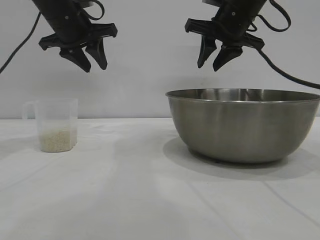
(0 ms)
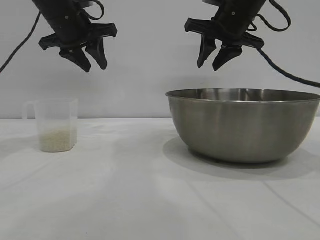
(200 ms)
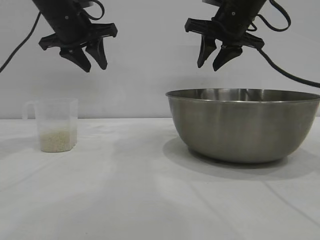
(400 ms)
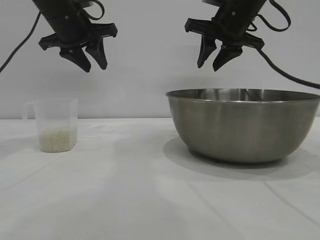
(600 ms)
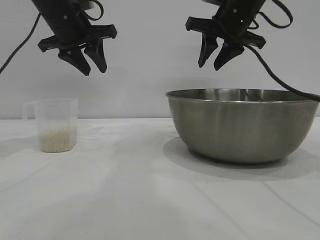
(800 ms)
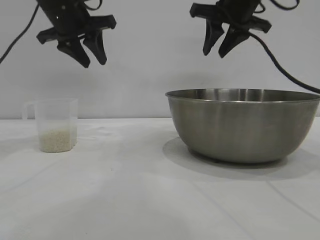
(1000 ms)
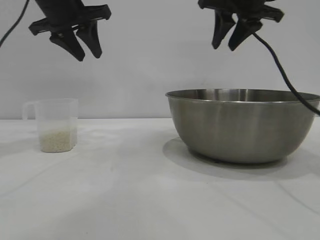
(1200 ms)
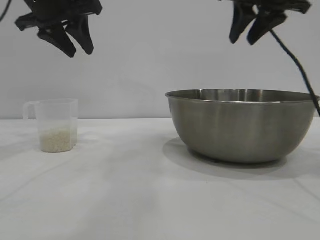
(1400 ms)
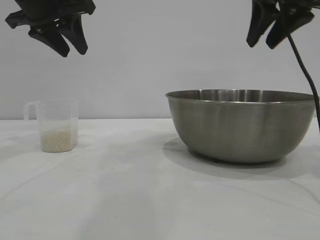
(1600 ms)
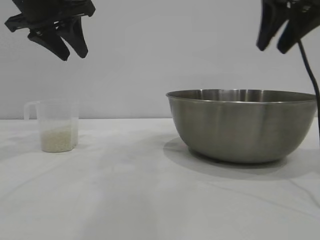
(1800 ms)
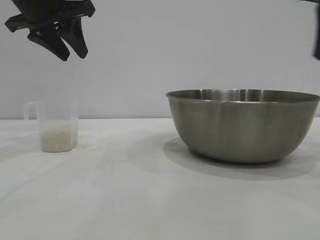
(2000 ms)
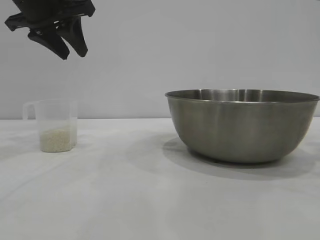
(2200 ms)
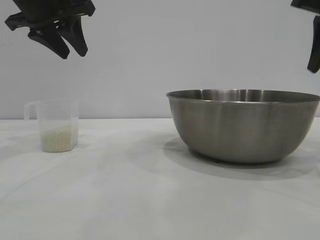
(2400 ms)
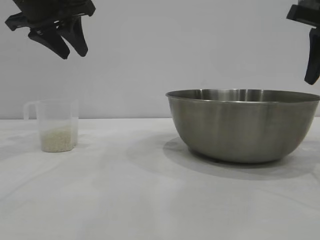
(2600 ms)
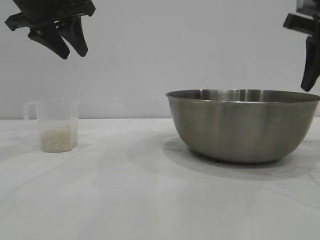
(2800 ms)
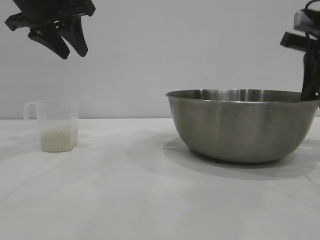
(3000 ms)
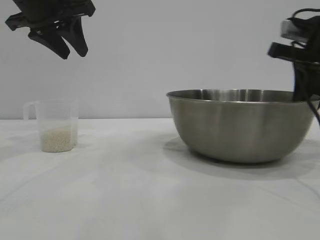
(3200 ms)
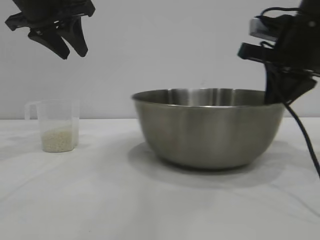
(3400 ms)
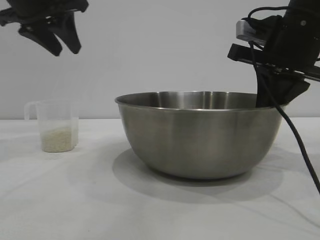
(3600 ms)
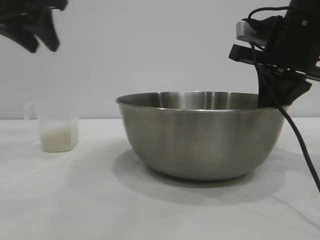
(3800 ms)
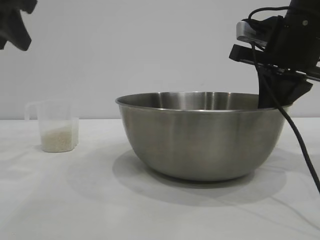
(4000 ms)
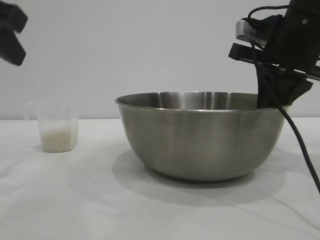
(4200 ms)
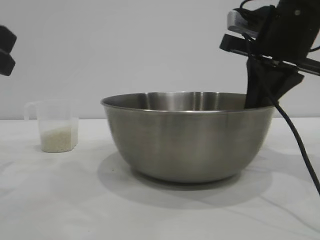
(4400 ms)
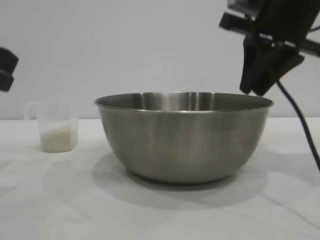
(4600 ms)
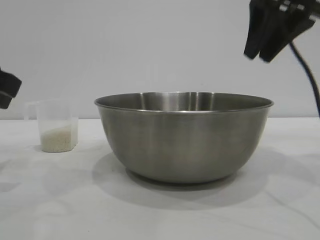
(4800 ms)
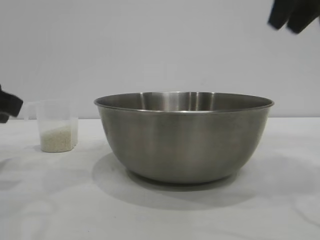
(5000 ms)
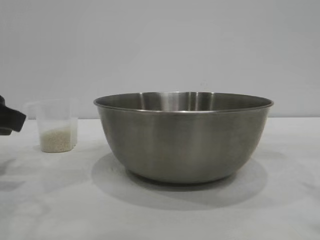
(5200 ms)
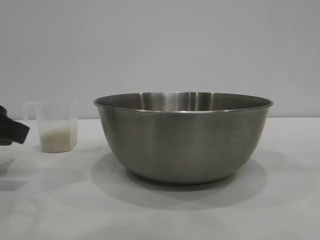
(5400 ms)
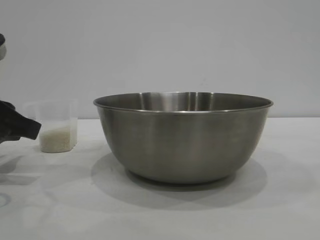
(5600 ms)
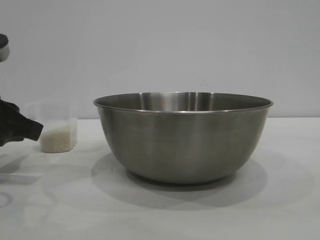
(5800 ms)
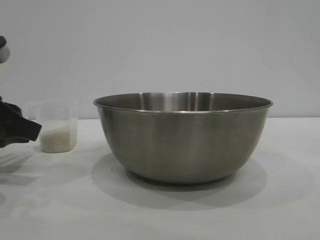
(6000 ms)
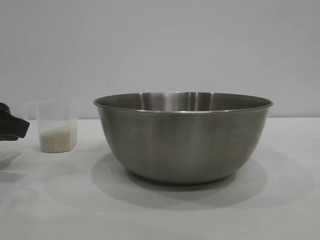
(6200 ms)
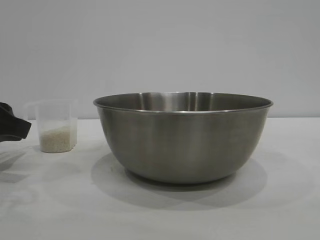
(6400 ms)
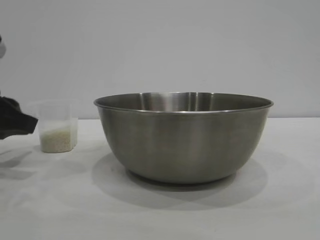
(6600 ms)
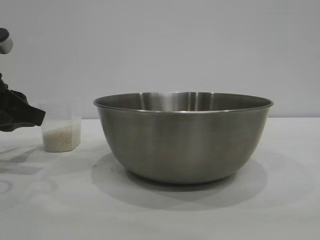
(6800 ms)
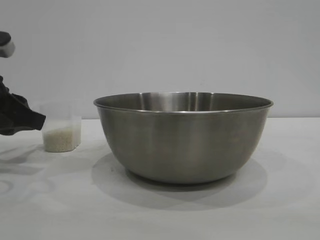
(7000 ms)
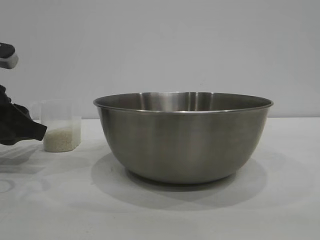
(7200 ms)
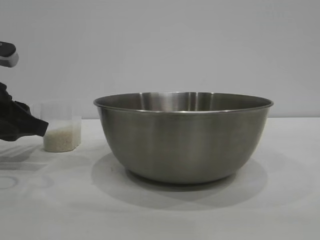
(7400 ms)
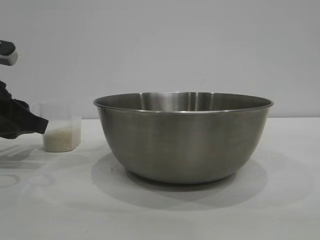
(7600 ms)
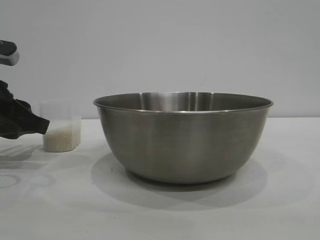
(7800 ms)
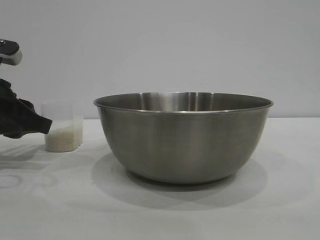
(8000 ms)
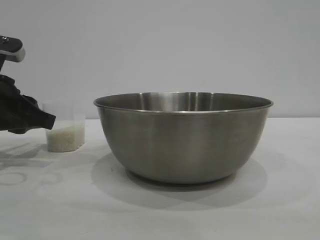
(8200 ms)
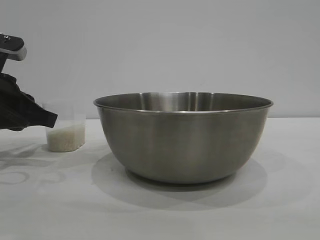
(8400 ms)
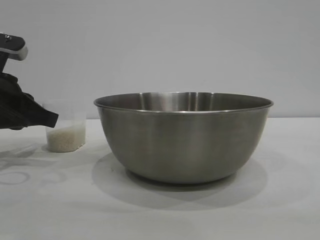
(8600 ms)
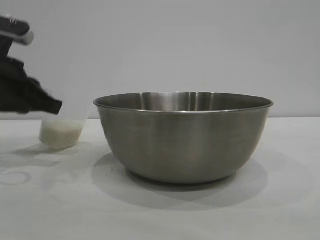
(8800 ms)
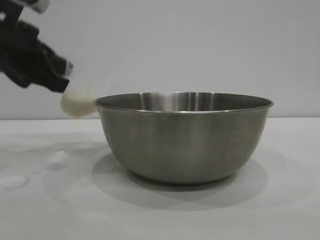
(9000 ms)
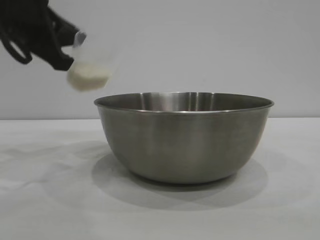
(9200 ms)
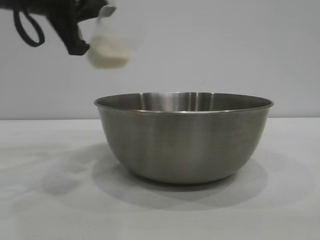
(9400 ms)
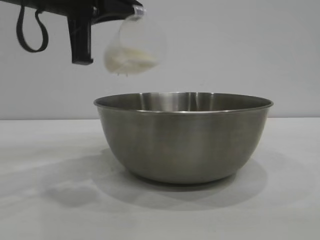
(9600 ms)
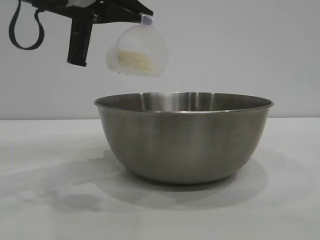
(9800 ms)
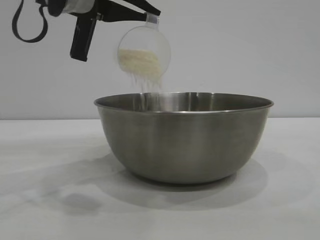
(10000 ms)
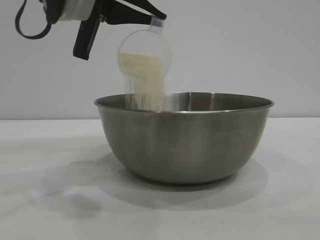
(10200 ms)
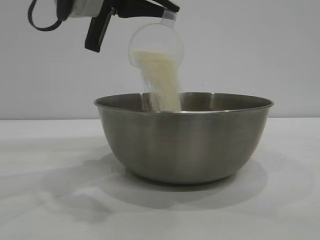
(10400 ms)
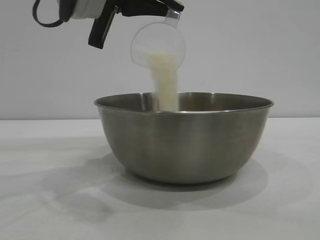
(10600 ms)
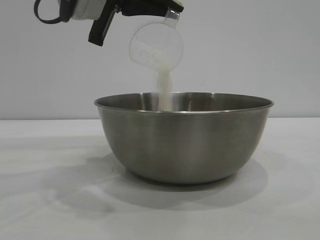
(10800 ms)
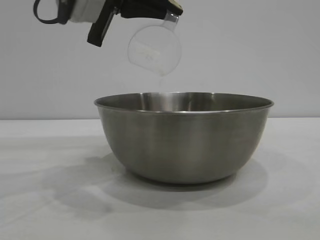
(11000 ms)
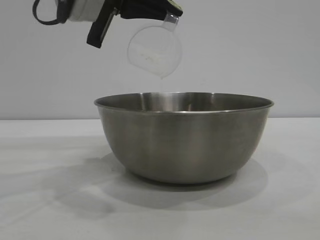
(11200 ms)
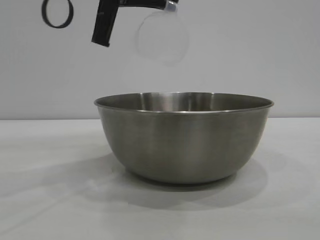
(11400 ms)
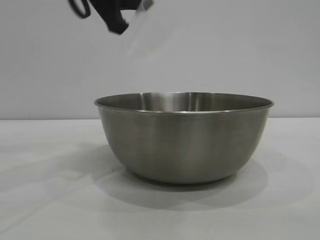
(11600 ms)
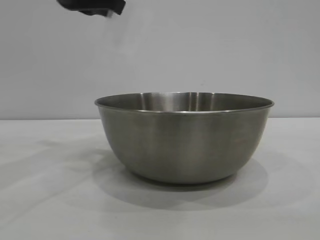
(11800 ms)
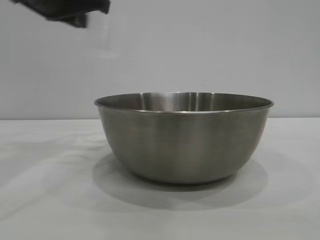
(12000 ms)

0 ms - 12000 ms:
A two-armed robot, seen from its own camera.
Task of the whole recording: the right gripper grasp the rice container and place it in the center of the table, the left gripper grasp the rice scoop and pour the rice into the rice container.
Step, 0 ms - 4600 ms: Move the bowl to the center of view with the right gripper.
Step, 4800 ms - 8800 ms: Pick up the cup with rice in it with the left gripper.
Step, 9200 ms - 11200 ms: Pour the rice from the cup into the bowl with the left gripper.

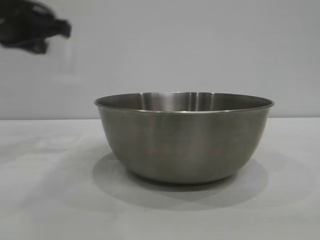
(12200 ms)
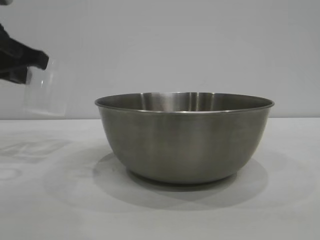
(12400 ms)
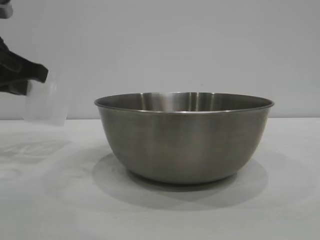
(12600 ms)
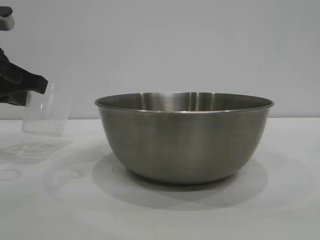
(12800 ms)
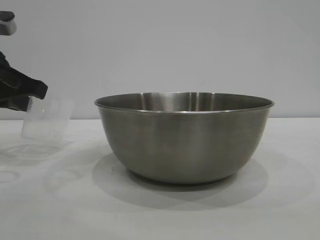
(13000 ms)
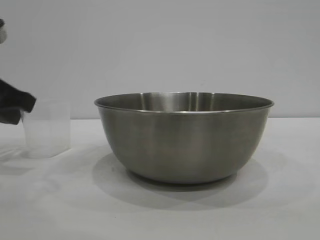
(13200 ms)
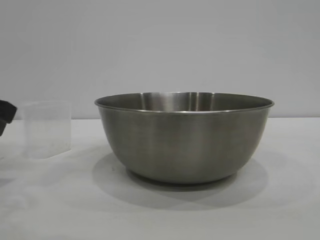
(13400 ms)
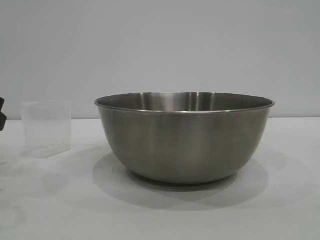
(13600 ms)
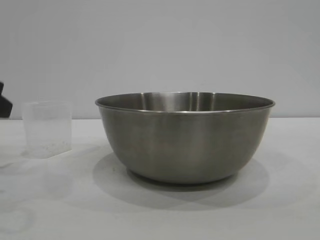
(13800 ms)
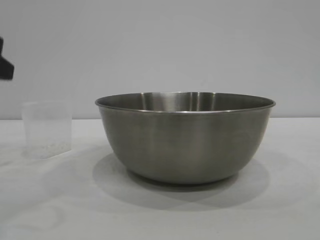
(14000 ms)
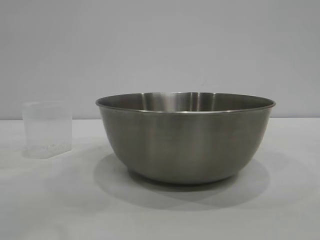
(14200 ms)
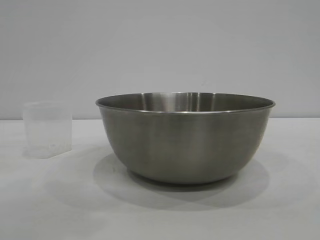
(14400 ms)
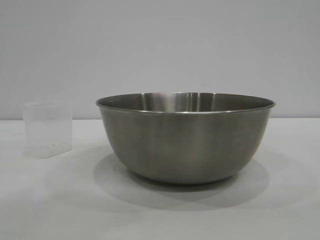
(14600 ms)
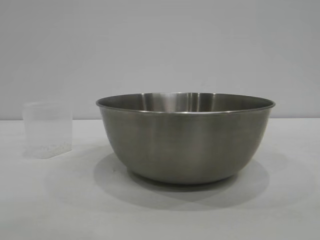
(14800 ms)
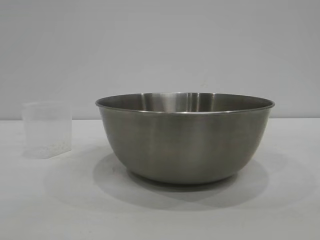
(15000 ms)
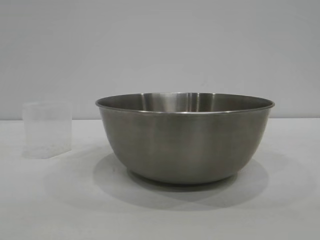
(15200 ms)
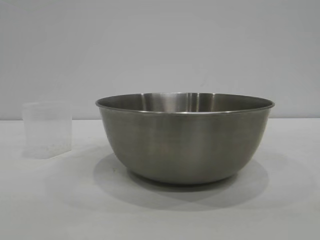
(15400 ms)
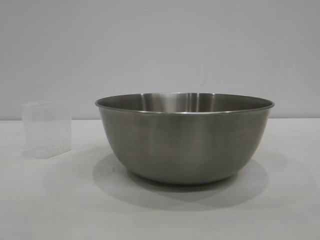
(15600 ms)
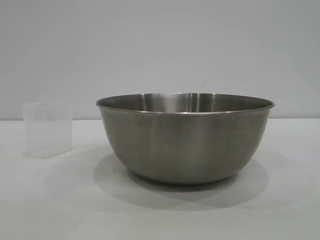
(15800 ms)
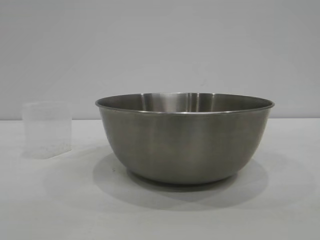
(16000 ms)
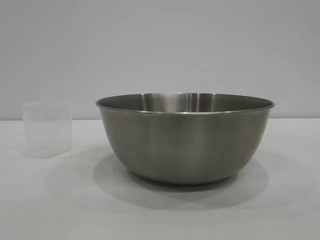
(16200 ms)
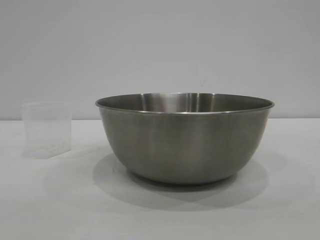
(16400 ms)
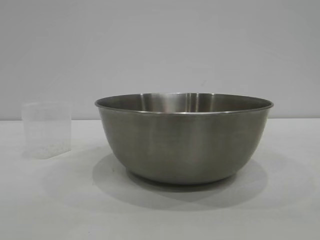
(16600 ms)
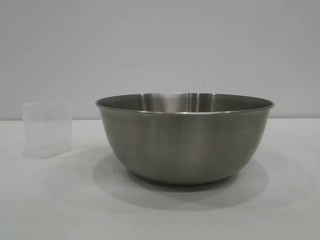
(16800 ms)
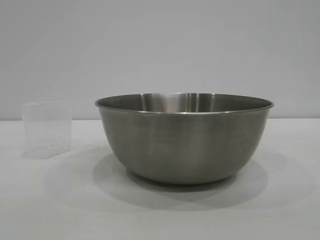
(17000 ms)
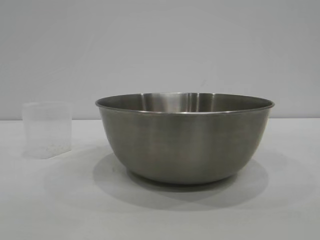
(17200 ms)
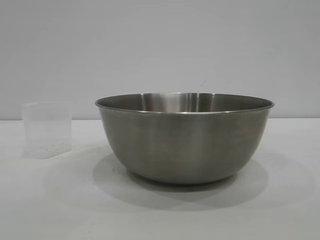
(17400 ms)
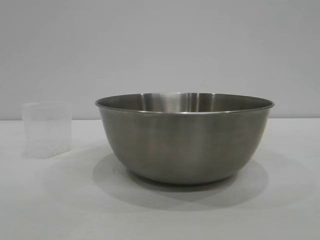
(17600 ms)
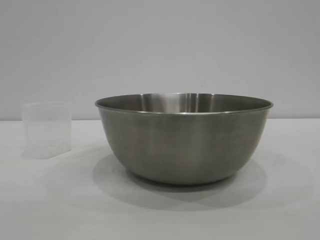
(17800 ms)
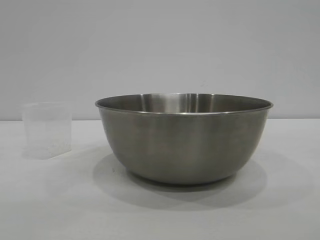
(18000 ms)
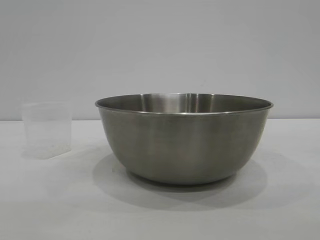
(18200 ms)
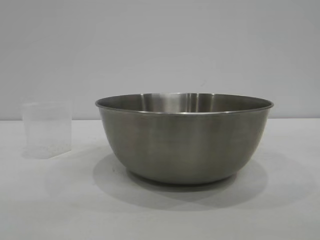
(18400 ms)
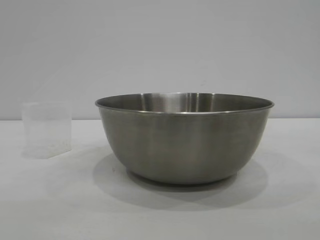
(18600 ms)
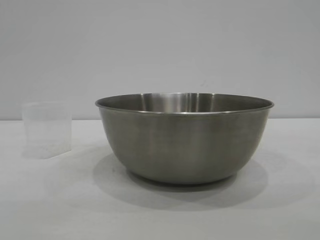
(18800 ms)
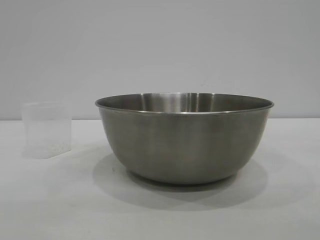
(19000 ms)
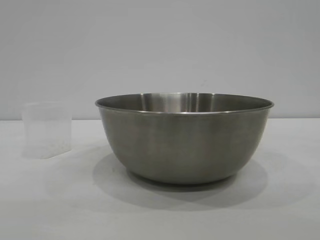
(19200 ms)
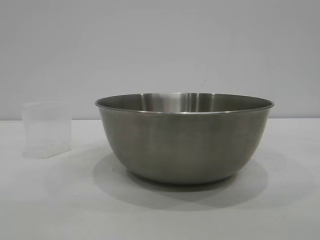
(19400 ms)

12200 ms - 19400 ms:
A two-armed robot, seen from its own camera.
Task of the whole recording: the right gripper grasp the rice container and place it in the center of the table, the left gripper grasp the rice scoop and pour the rice into the rice container.
Step, 12200 ms - 13600 ms: Place the cup on the table with the left gripper.

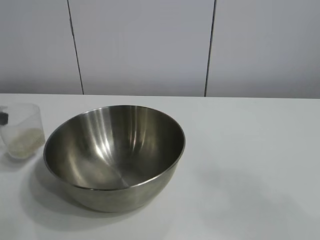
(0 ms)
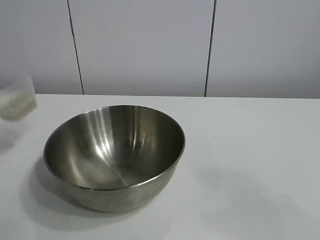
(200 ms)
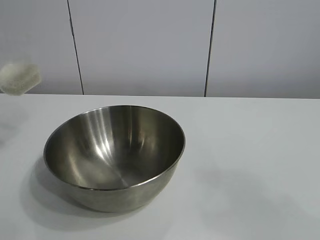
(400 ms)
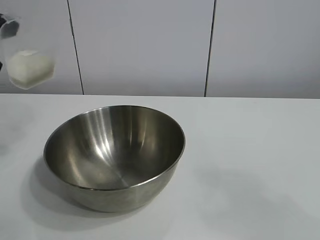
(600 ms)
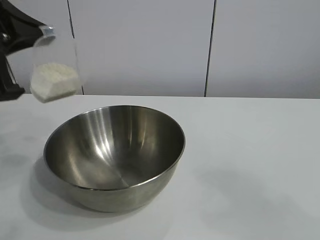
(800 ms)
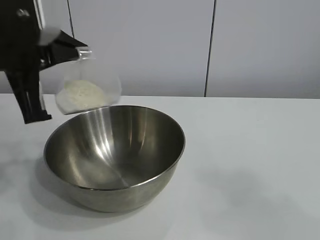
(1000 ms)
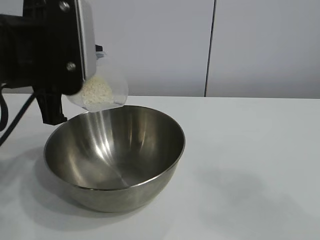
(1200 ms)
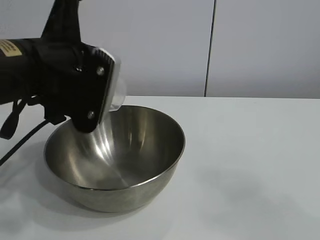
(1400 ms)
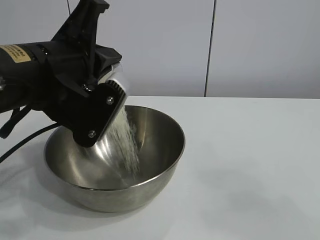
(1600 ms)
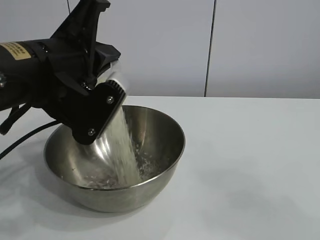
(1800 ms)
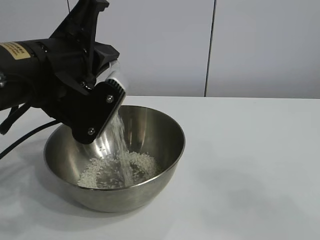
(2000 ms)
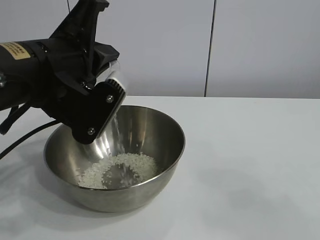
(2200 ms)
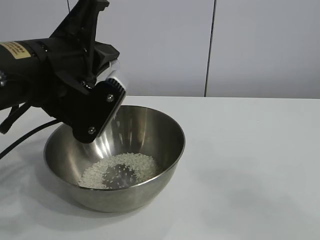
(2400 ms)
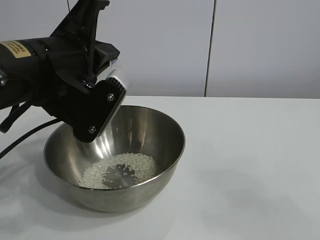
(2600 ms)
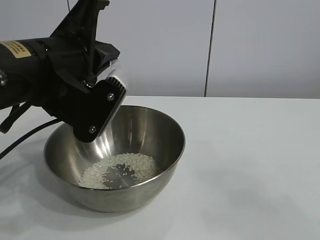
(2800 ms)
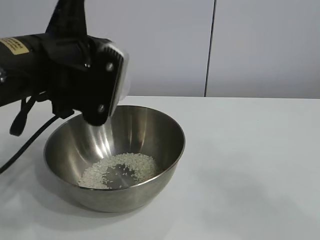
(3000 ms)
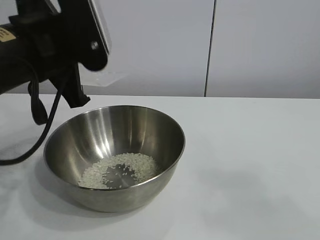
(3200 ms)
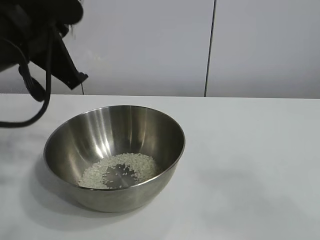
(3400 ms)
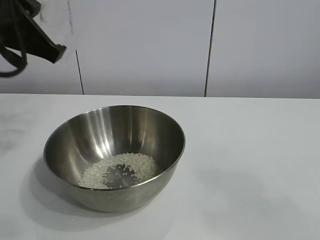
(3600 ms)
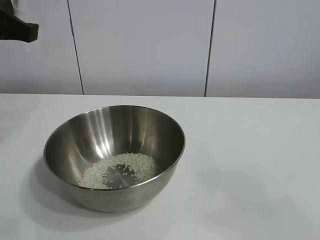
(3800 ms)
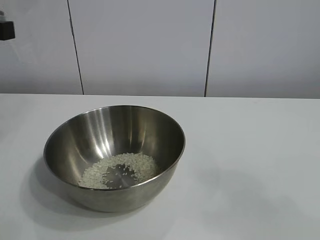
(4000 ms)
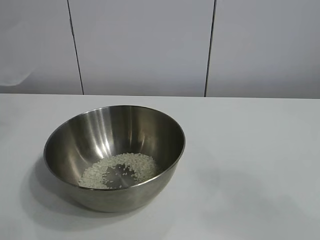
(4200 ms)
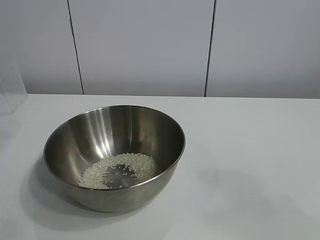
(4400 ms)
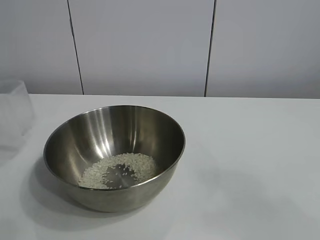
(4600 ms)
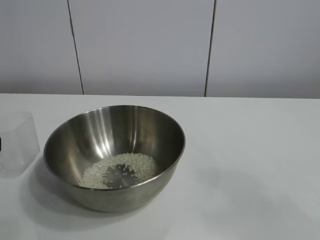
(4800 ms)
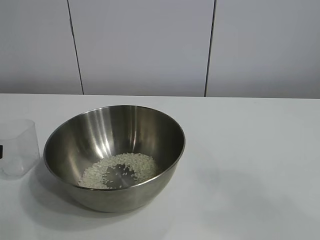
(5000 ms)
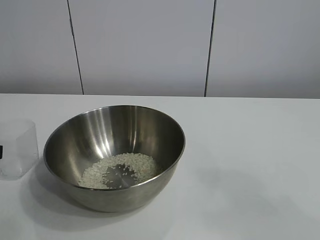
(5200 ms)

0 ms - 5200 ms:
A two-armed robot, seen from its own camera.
Task of the whole recording: the right gripper grasp the rice container and place it in the center of the table, the left gripper grasp the rice scoop and pour the rice into the rice container.
Step, 0 ms - 2800 ms: Pour the rice from the cup into the bowl with the left gripper.
